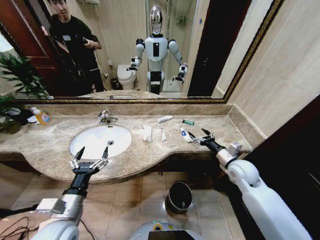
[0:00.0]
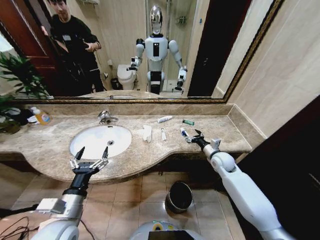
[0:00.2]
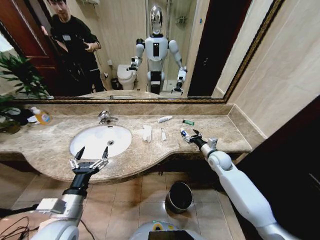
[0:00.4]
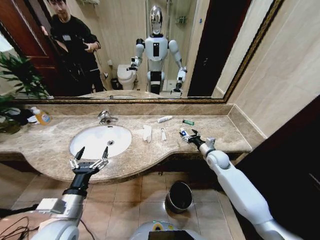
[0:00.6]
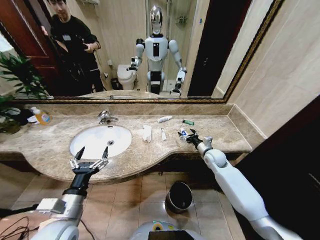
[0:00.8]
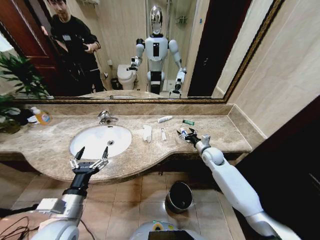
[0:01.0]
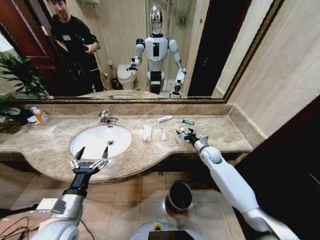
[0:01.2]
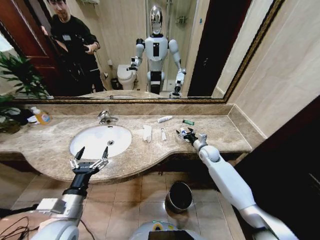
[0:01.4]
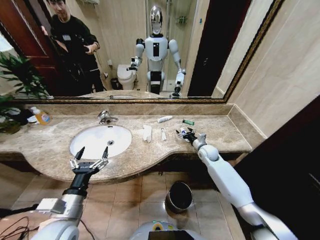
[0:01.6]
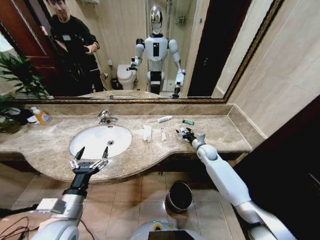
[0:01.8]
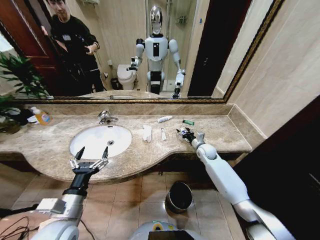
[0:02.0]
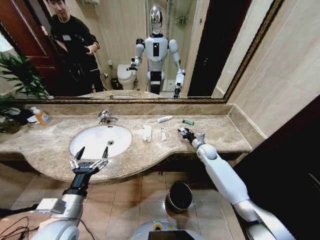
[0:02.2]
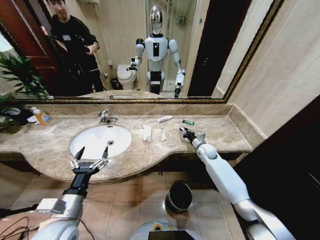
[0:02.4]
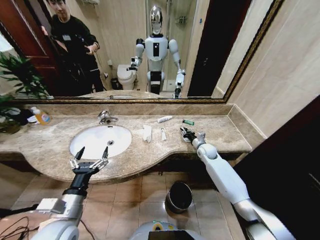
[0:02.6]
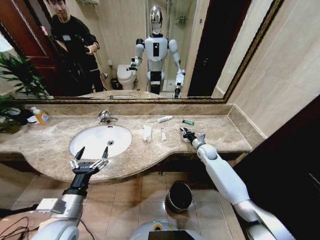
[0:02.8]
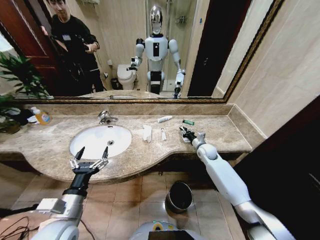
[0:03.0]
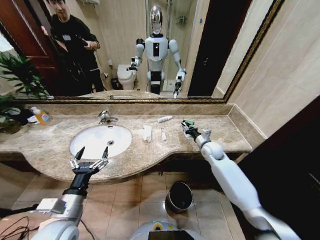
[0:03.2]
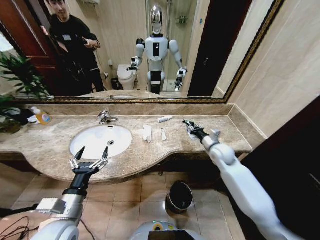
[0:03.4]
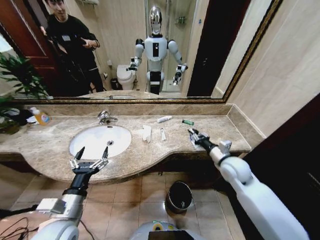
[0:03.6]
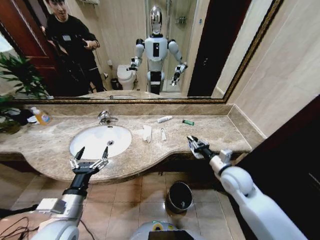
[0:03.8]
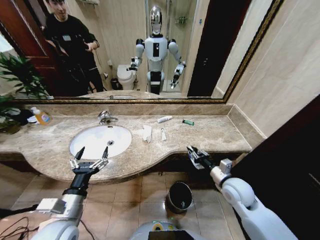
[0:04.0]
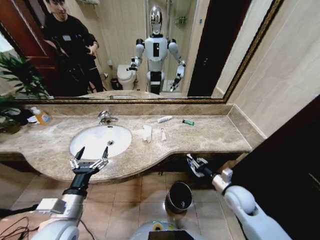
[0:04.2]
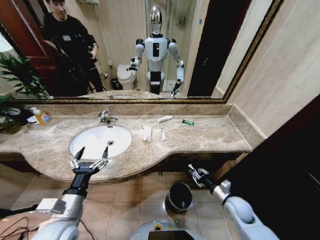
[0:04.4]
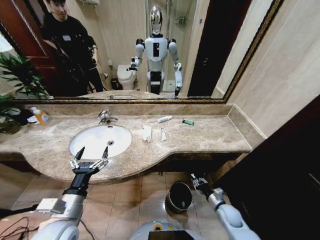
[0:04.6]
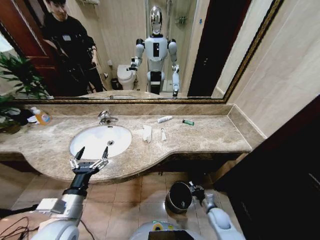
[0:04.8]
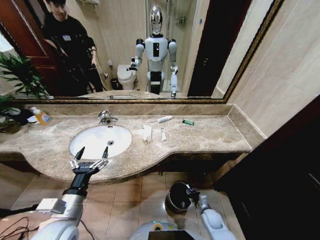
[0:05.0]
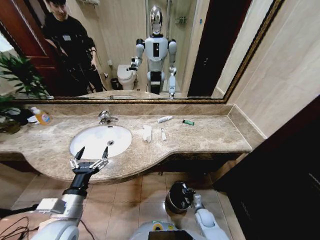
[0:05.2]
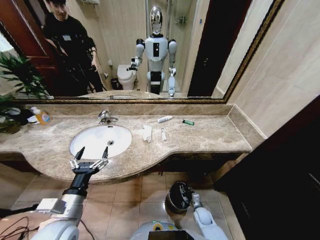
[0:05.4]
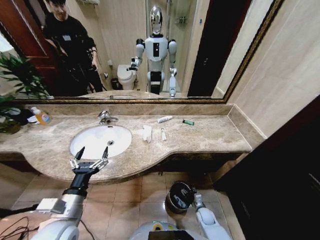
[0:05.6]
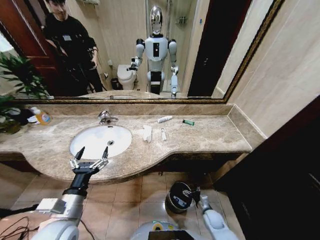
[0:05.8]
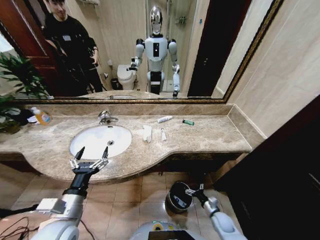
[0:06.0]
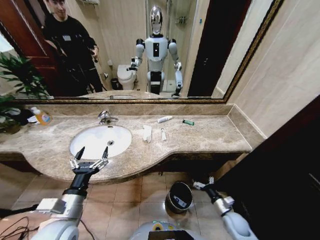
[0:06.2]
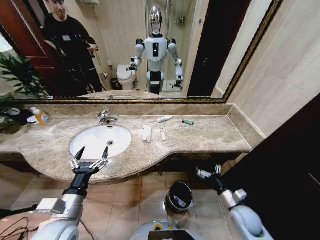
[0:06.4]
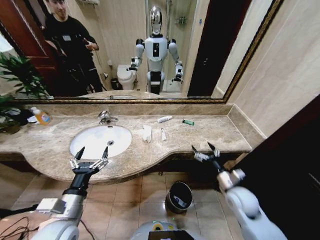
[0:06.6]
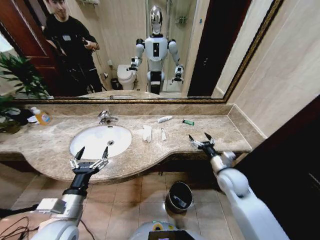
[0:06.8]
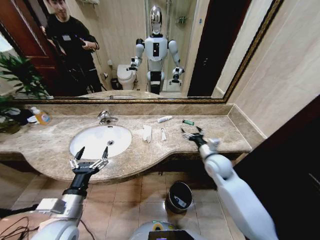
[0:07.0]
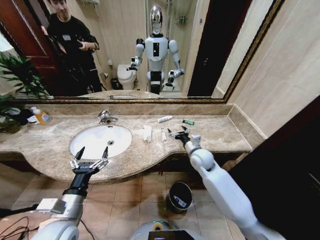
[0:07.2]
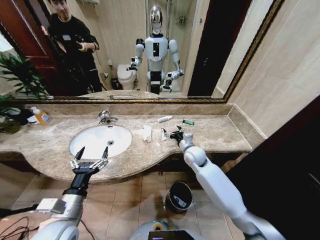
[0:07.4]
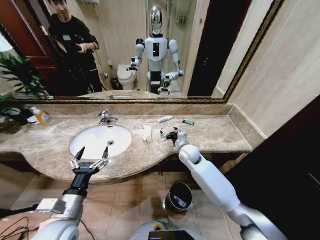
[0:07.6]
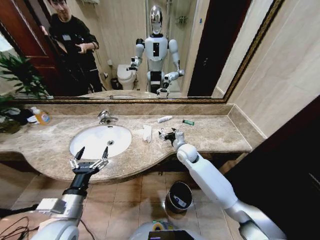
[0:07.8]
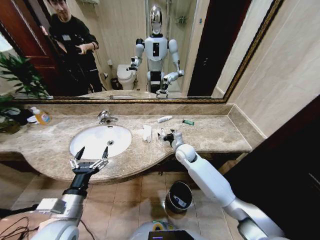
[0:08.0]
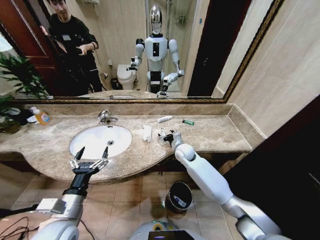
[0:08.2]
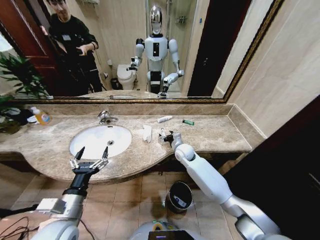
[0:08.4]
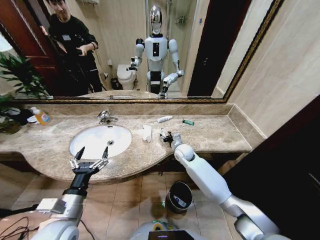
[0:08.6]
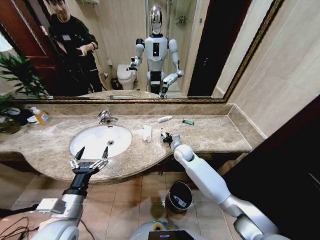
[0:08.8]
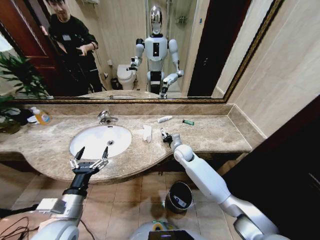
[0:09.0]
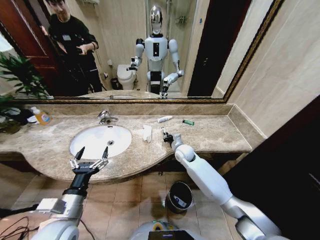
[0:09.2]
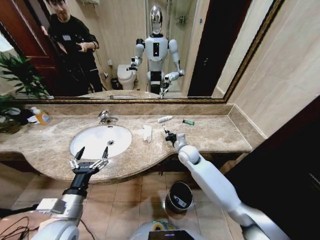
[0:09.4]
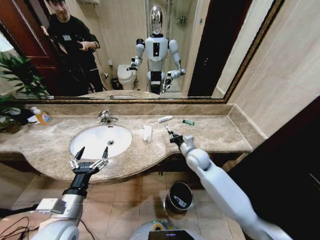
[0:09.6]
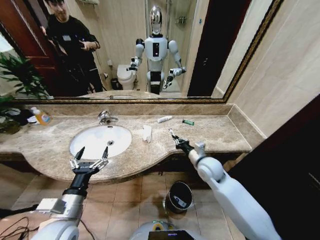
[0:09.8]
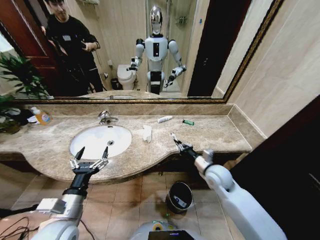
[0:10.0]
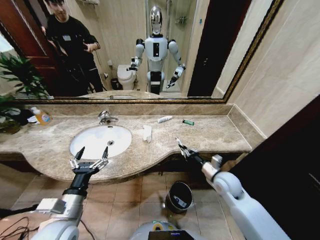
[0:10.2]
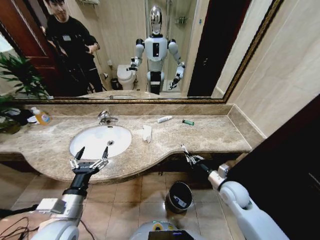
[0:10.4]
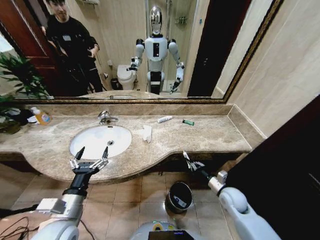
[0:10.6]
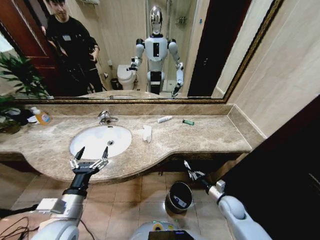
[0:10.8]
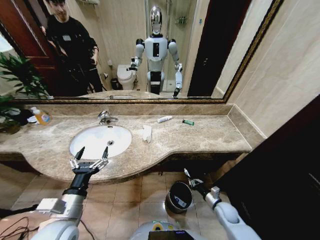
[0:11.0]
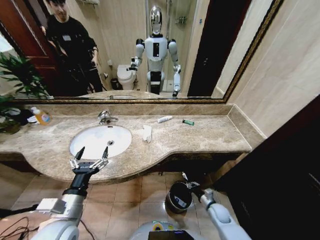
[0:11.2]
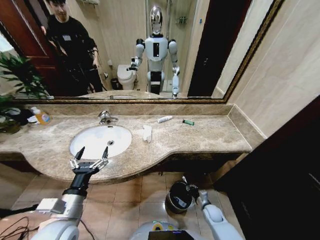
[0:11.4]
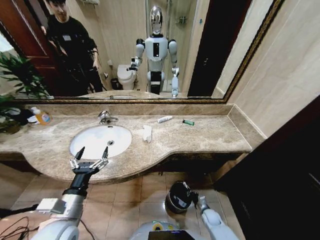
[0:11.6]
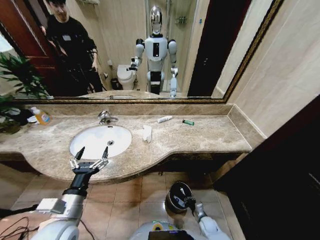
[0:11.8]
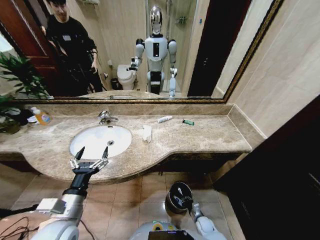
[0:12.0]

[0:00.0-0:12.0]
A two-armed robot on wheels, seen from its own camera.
Task of the whole recording: Pick up the trash from the sink and place it in the trash bin.
0:01.6 to 0:03.0: The right gripper closes up.
0:03.0 to 0:04.4: The right gripper shifts some 25 cm backward and downward.
0:04.4 to 0:06.0: The right gripper shifts approximately 15 cm downward, and opens its fingers.
0:06.0 to 0:07.6: The right gripper shifts roughly 40 cm upward, forward and to the left.
0:07.6 to 0:09.0: The right gripper changes place by approximately 5 cm, and closes its fingers.
0:09.0 to 0:10.4: The right gripper shifts roughly 25 cm backward and to the right.
0:10.4 to 0:12.0: The right gripper heads downward, covering some 30 cm.

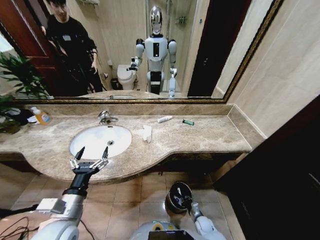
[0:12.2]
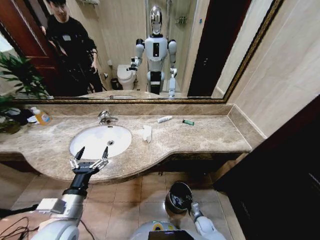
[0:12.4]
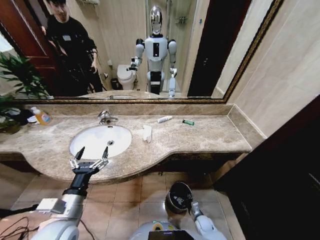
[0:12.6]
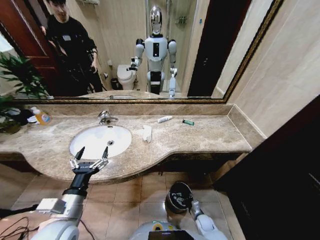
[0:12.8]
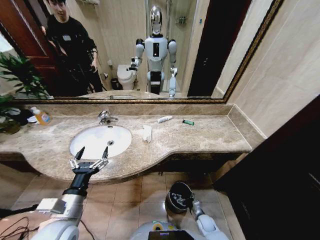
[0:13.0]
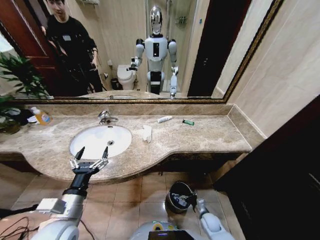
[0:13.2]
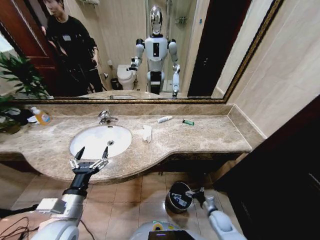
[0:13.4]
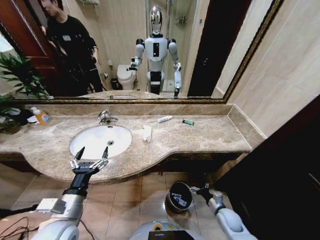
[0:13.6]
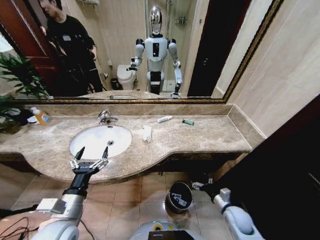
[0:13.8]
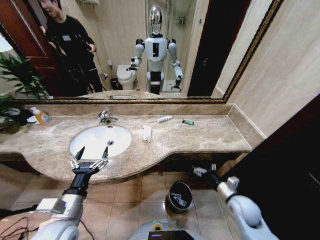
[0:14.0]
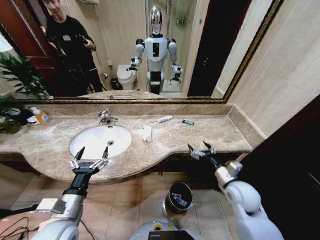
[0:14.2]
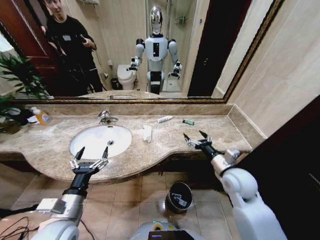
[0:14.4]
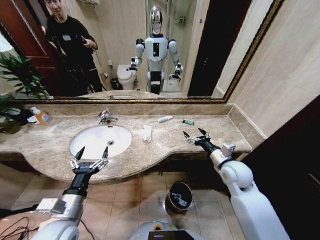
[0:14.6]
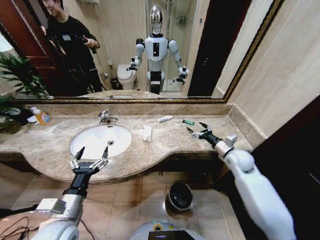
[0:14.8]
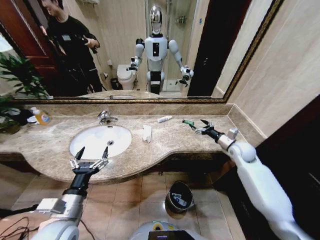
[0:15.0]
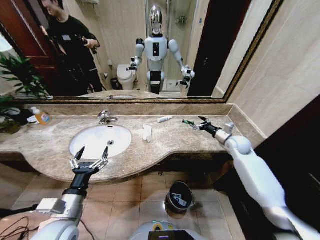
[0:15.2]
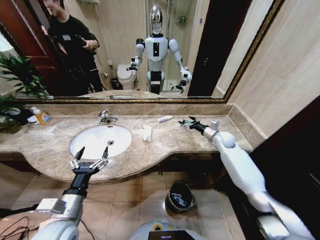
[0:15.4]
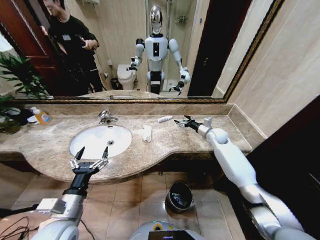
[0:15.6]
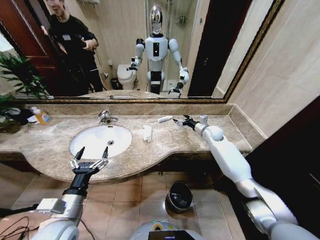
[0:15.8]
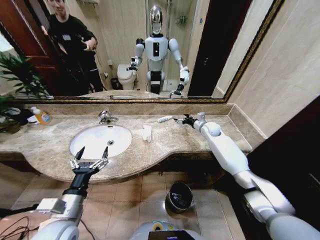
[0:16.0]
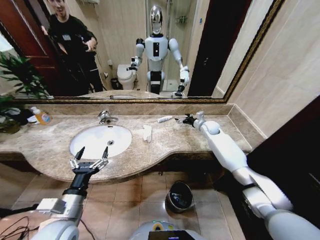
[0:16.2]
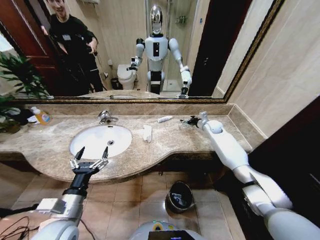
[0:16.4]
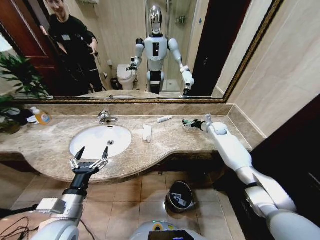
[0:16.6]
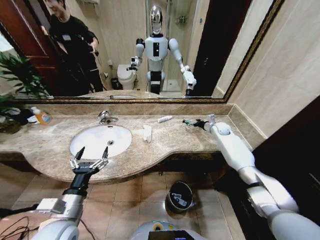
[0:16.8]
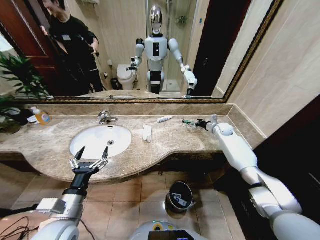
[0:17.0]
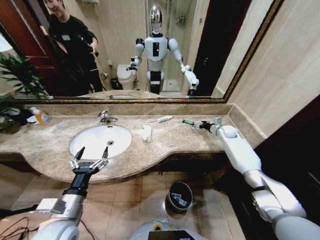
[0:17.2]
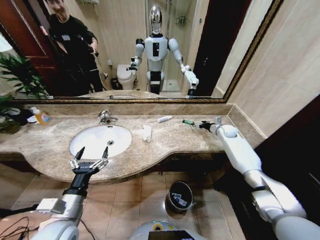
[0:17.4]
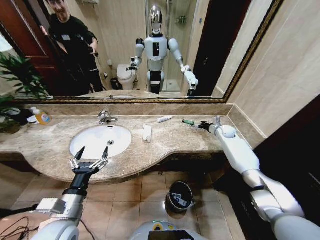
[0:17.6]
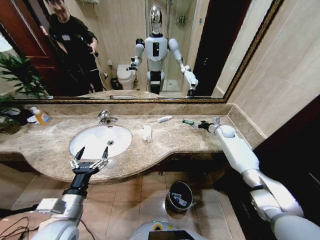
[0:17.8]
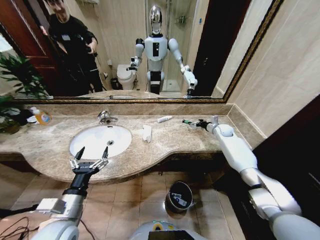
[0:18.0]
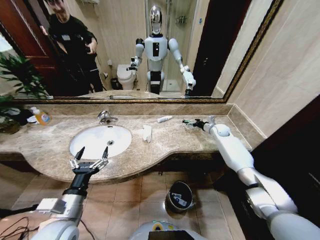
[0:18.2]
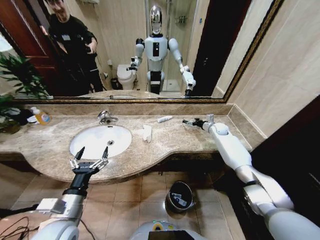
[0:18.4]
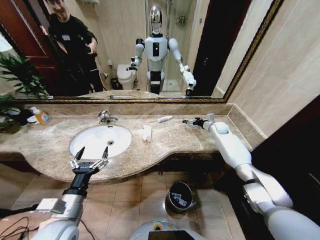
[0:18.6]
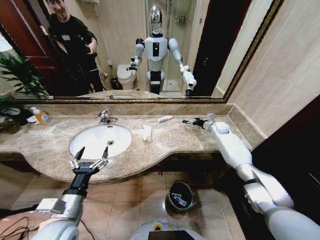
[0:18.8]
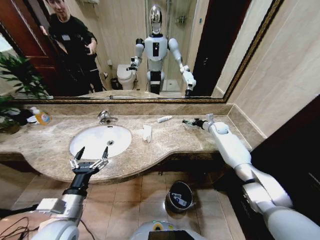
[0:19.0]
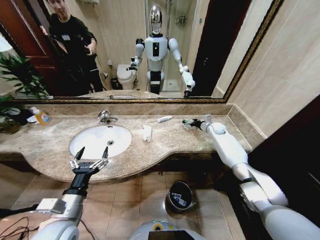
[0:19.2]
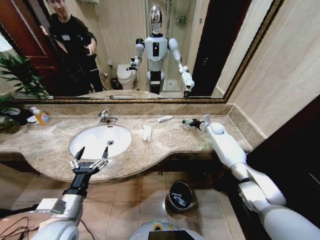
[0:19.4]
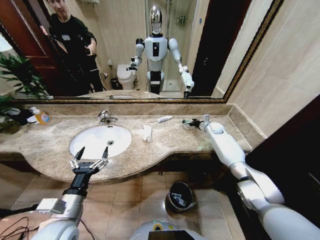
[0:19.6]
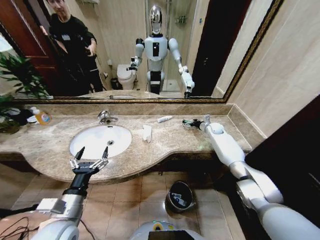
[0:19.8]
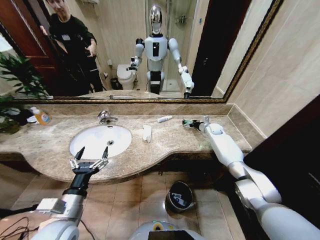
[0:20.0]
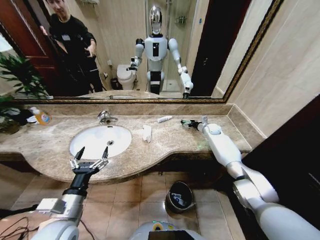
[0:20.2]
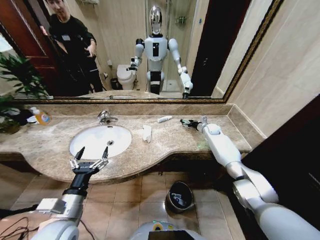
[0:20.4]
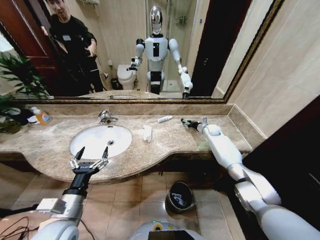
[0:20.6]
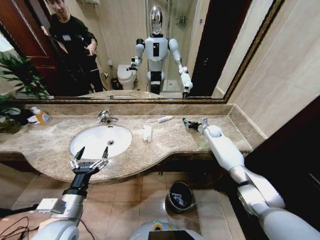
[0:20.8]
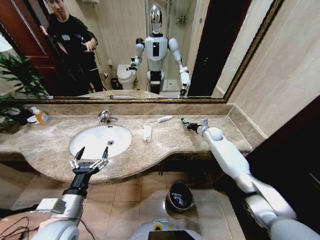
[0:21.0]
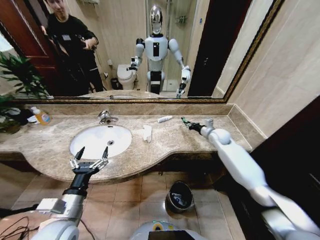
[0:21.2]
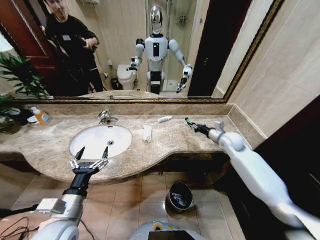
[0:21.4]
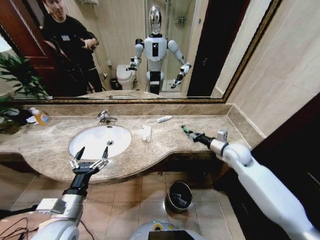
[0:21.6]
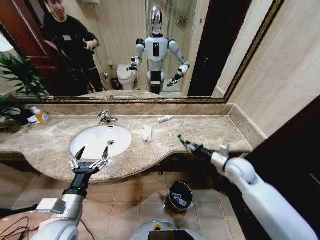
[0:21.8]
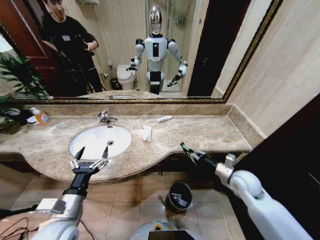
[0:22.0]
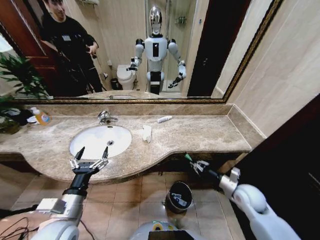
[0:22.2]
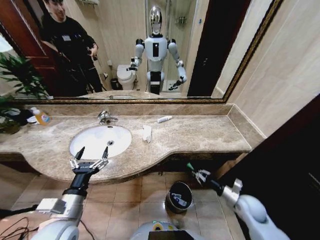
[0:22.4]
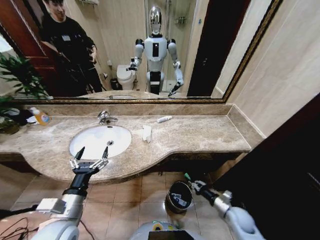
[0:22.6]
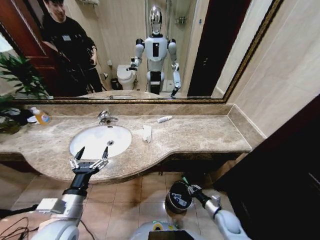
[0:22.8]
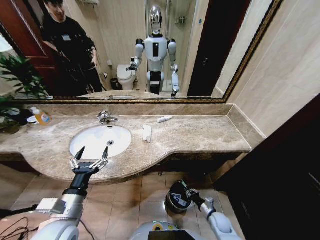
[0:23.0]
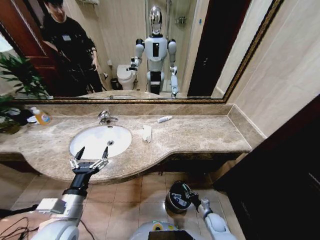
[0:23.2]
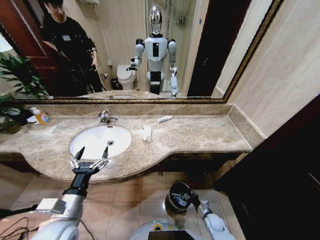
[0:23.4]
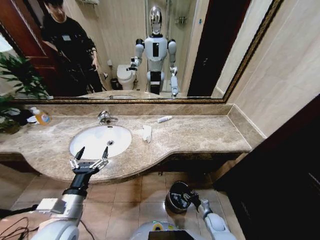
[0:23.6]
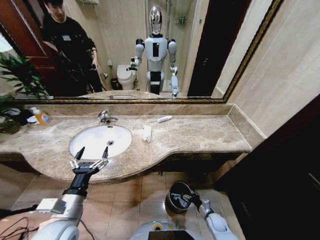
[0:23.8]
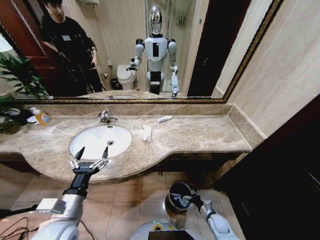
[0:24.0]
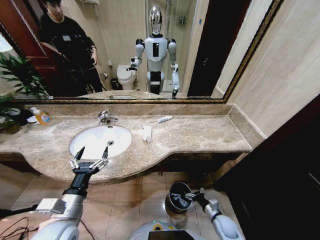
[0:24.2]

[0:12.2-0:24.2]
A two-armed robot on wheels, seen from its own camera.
Task of the whole recording: Pick up the trash from the sink and place it in the trash bin.
0:12.2 to 0:13.8: The right gripper is displaced upward by roughly 20 cm, and opens.
0:13.8 to 0:15.2: The right gripper moves forward and upward, roughly 35 cm.
0:15.2 to 0:16.6: The right gripper moves forward, about 10 cm.
0:18.2 to 0:19.8: The grippers move only a little.
0:19.8 to 0:21.2: The right gripper heads backward, covering some 10 cm, and closes.
0:21.2 to 0:22.6: The right gripper moves backward and downward, some 40 cm.
0:22.6 to 0:24.2: The right gripper travels downward by some 5 cm, and opens.
